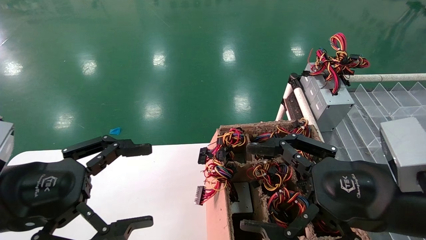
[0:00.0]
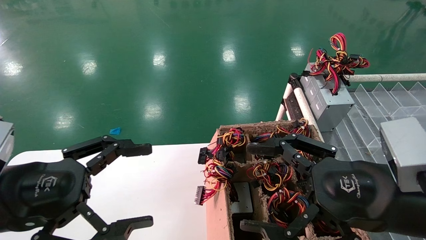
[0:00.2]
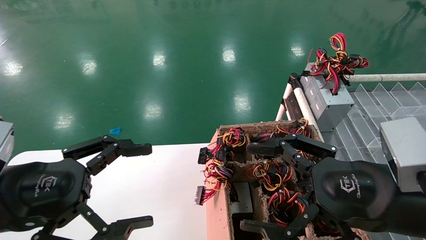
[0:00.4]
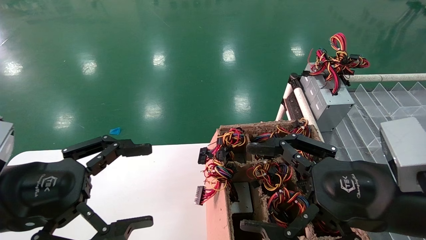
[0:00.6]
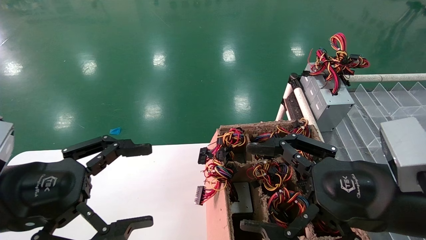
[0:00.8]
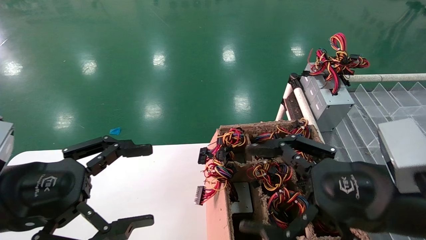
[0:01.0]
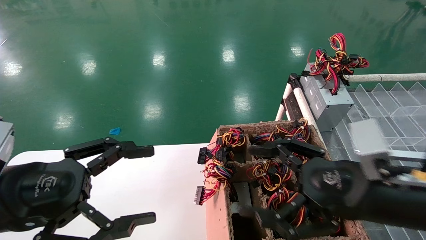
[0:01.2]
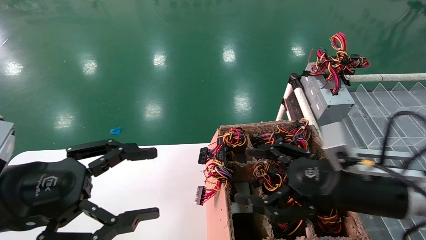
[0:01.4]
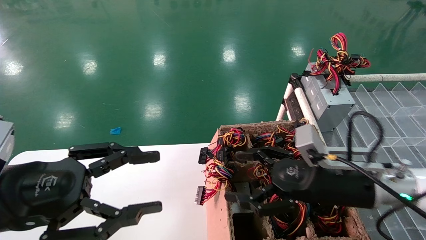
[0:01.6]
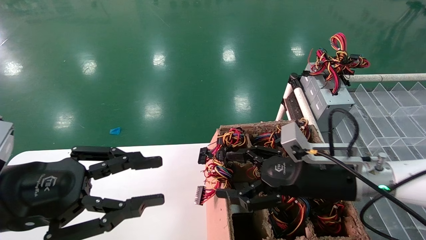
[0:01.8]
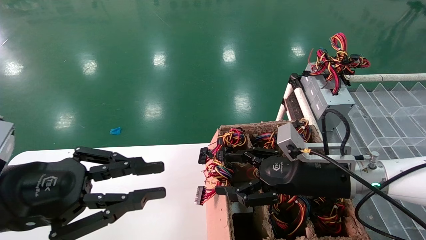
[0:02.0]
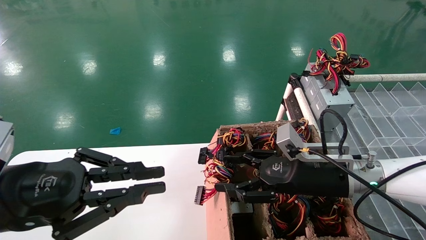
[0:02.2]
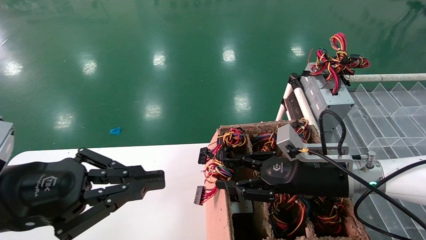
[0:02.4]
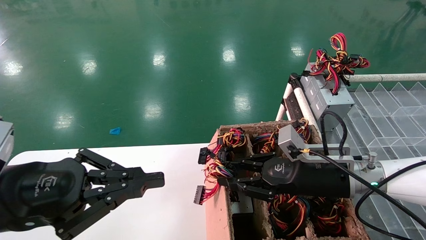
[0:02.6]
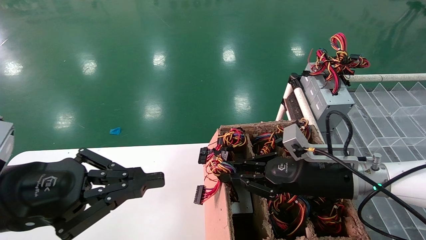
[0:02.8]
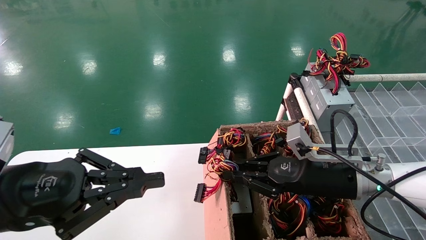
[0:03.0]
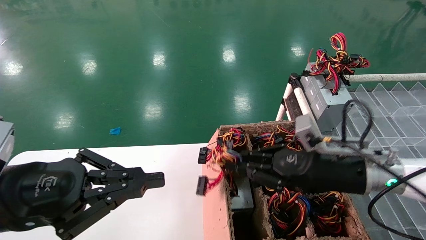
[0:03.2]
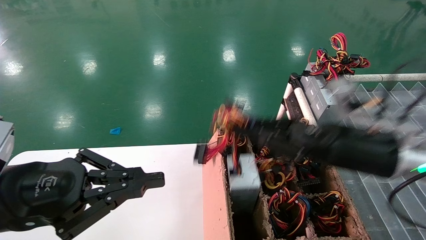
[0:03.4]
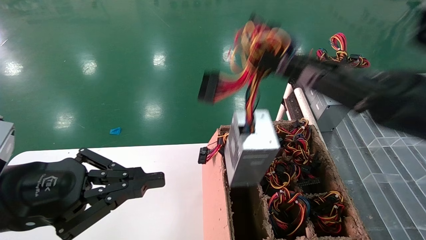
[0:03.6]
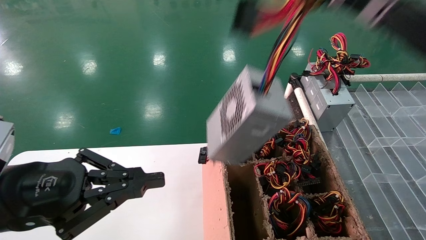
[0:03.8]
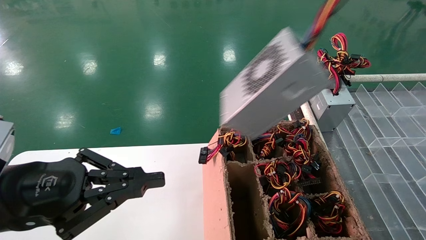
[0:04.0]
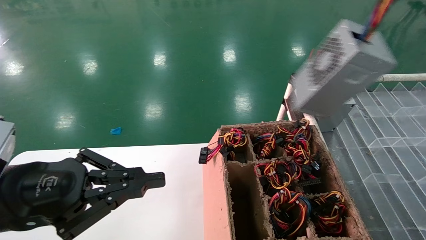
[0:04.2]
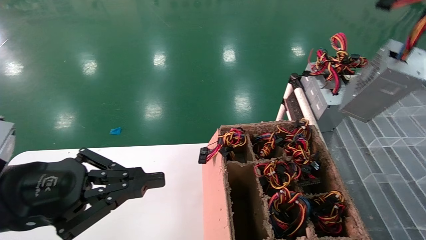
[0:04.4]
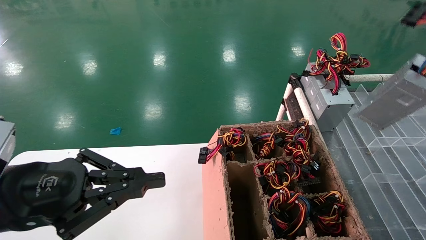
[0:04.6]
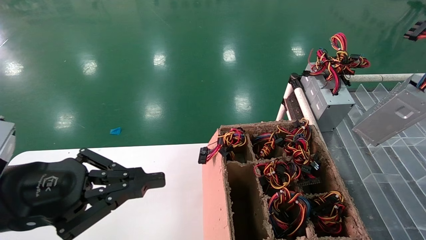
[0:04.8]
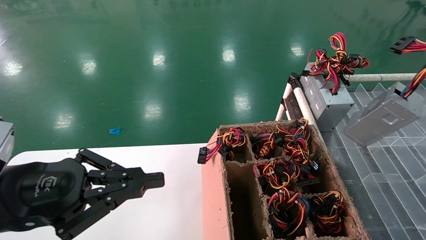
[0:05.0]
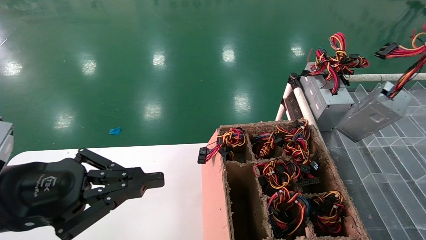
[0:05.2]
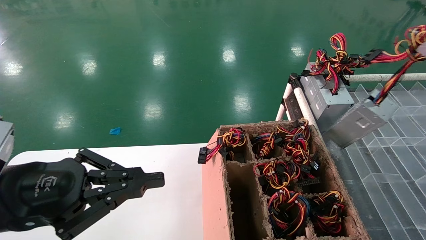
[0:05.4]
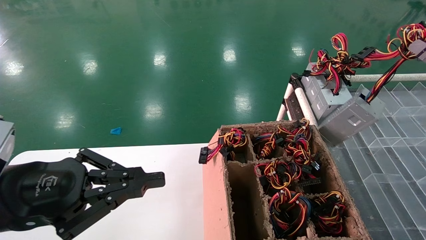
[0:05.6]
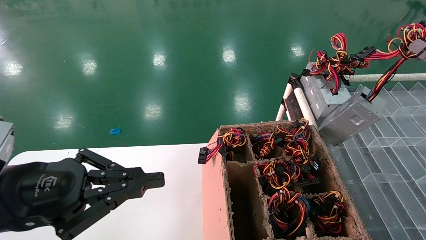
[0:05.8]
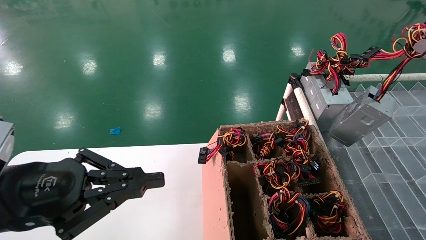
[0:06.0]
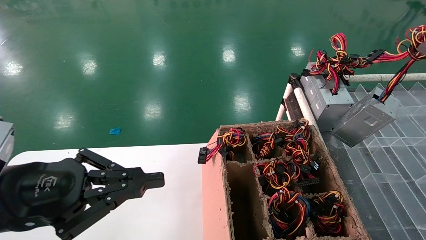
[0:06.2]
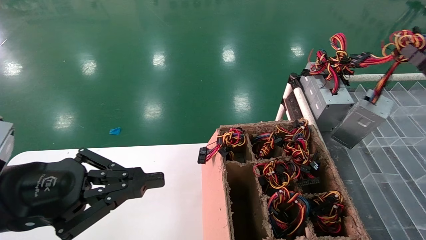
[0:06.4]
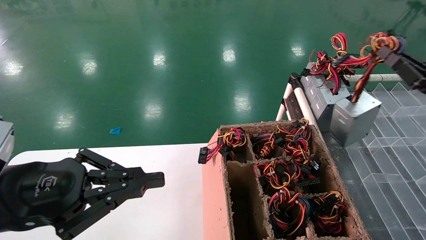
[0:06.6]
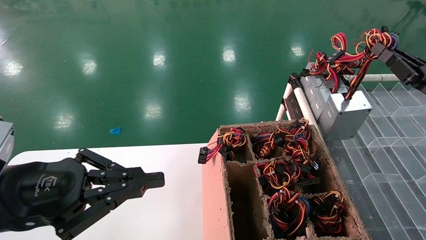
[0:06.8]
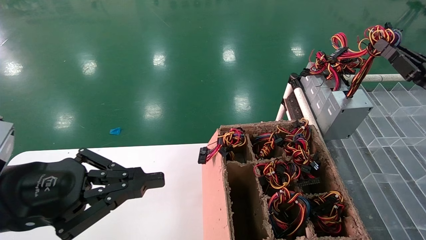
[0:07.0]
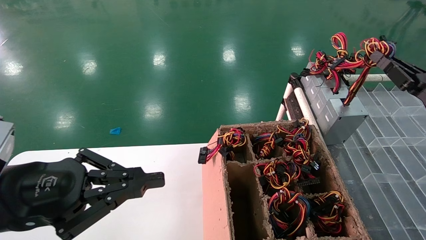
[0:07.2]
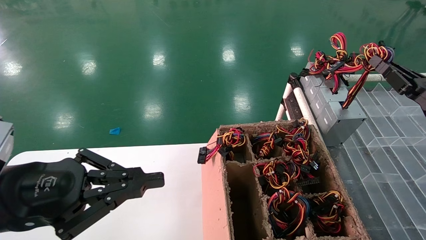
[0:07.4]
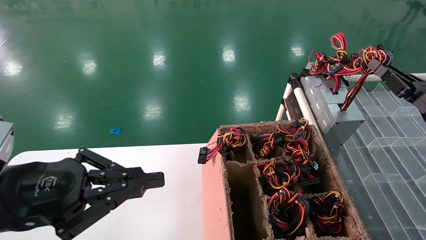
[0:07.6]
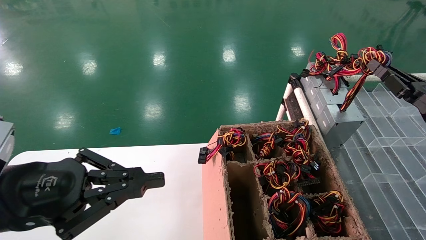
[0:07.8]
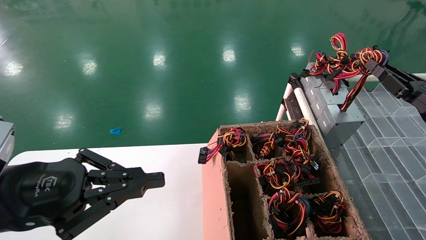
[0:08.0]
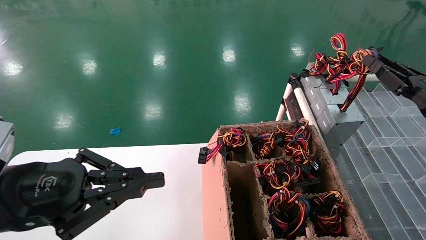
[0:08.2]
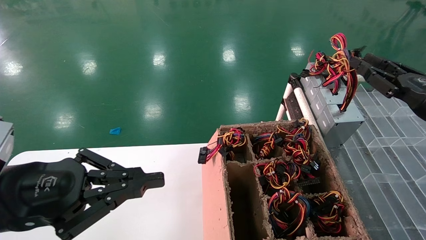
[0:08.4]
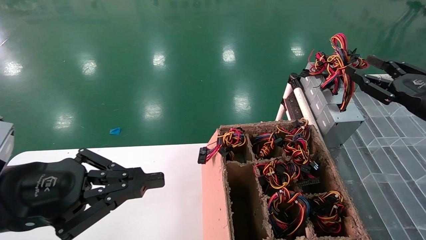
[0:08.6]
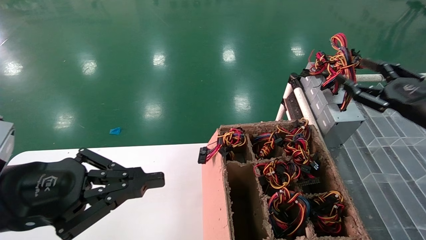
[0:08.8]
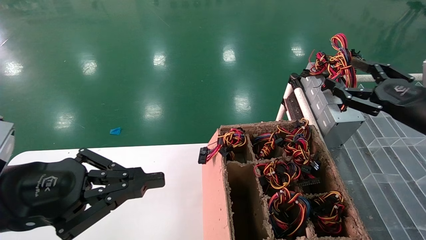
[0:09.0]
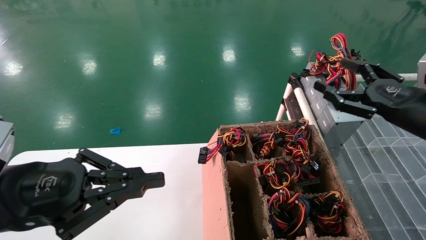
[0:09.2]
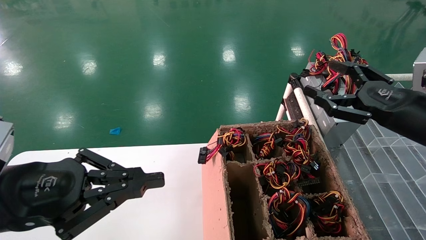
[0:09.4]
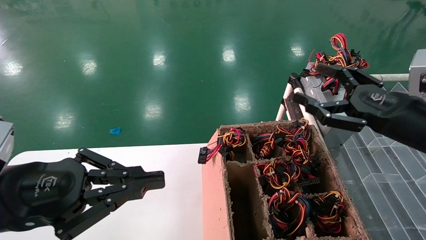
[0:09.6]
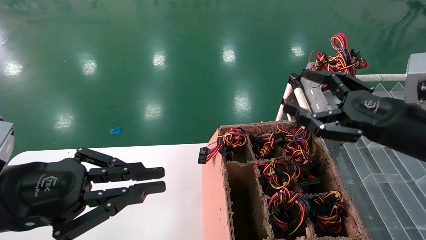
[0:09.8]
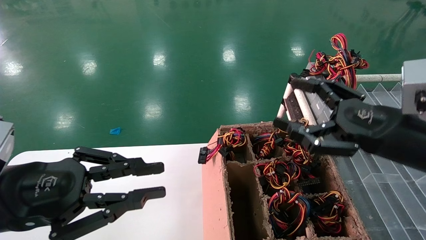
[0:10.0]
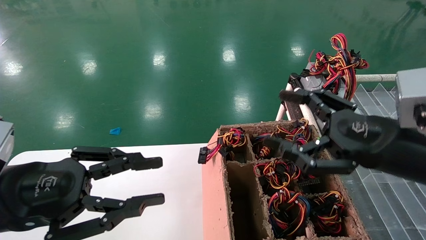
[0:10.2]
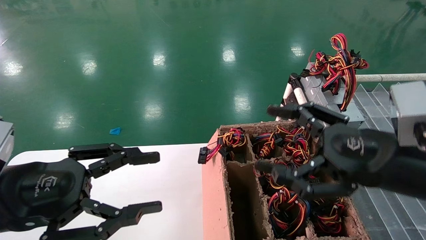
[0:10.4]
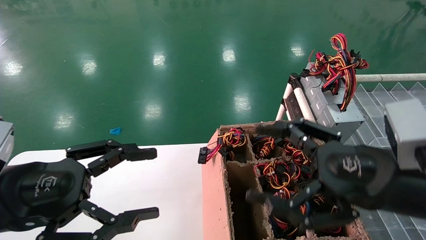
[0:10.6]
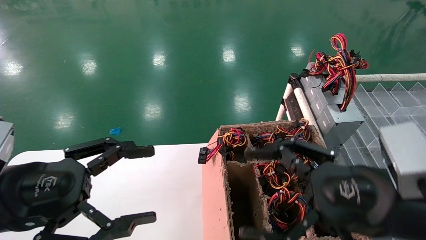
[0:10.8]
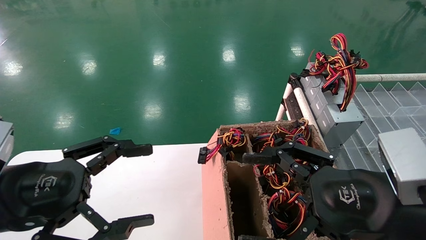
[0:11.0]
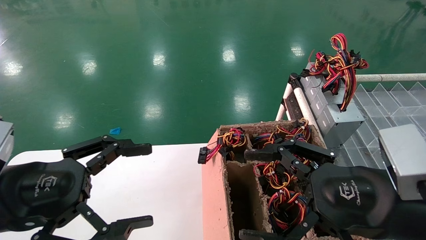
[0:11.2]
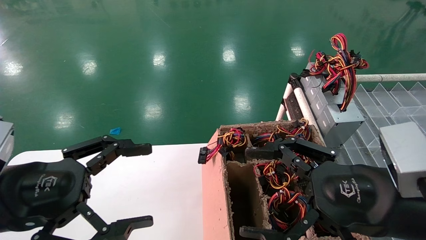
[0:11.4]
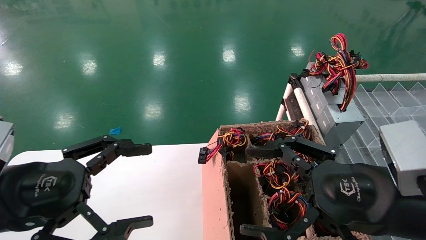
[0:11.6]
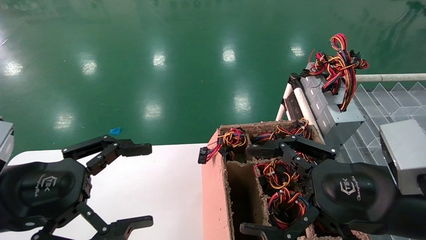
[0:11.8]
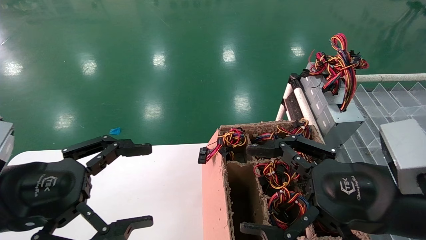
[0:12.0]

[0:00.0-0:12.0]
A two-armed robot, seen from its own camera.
Step, 0:01.2 to 0:03.0: Grab the main unit power supply from the containment box.
Step, 0:03.2 to 0:08.6: Place the main unit power supply in the designated area.
0:00.0 to 0:01.6: The right gripper travels forward by roughly 10 cm.
0:01.6 to 0:03.0: The right gripper closes its fingers; the left gripper closes up.
0:03.0 to 0:04.4: The right gripper goes roughly 30 cm to the right, upward and backward.
0:04.4 to 0:06.0: The right gripper travels downward and forward by about 10 cm.
0:06.0 to 0:07.6: The right gripper shifts roughly 5 cm forward.
0:07.6 to 0:09.0: The right gripper moves approximately 5 cm, and opens.
0:09.0 to 0:10.4: The right gripper moves to the left and backward, some 15 cm. The left gripper opens its fingers.
0:10.4 to 0:12.0: The left gripper opens.

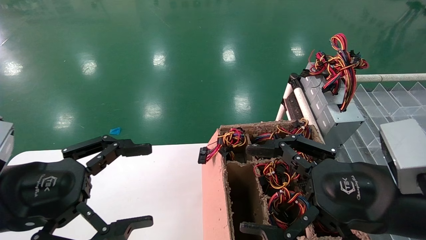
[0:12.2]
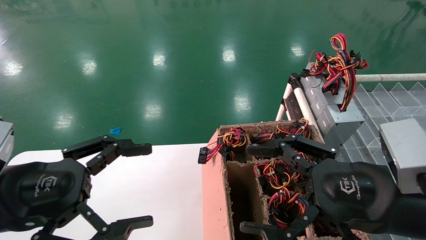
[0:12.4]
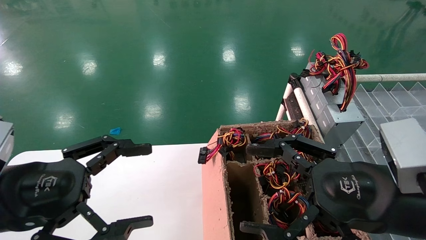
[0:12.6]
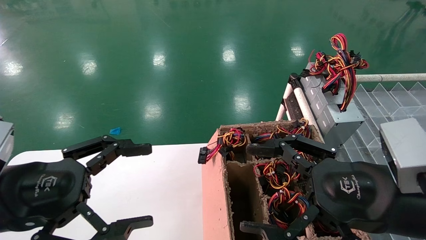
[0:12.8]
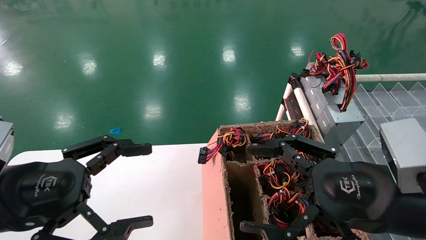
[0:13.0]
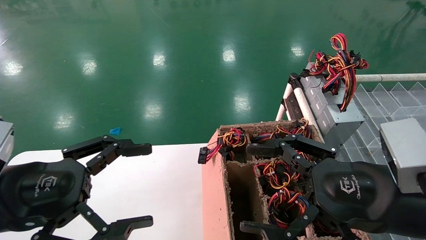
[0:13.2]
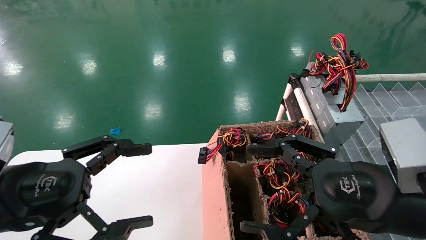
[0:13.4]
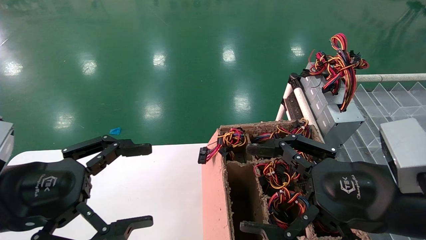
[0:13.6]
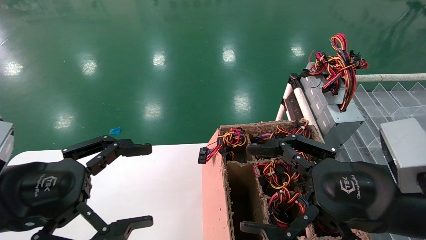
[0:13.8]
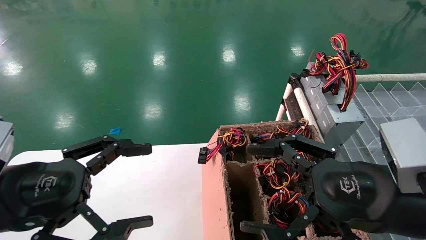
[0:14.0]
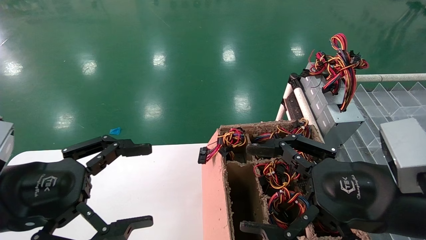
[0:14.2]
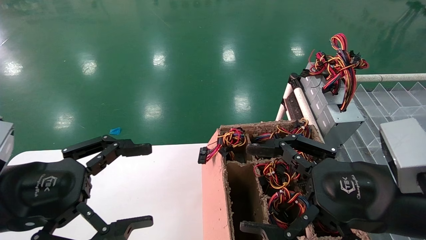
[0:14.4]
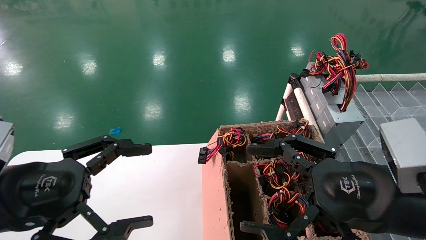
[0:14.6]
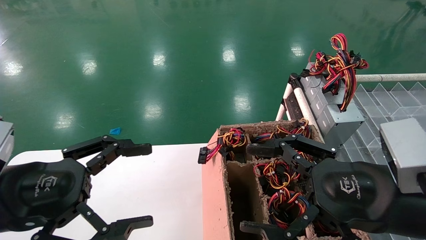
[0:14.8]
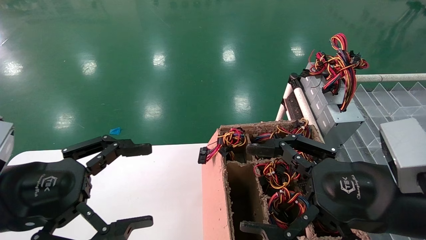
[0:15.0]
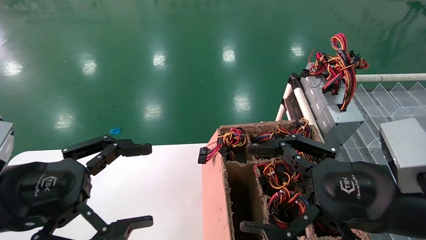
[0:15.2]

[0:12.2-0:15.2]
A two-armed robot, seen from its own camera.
0:12.2 to 0:15.2: The two grippers keep their place.
